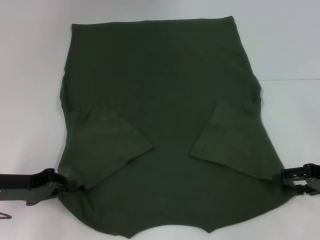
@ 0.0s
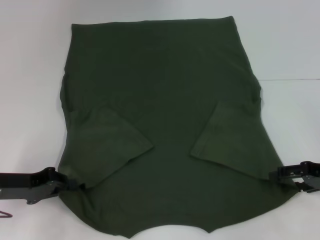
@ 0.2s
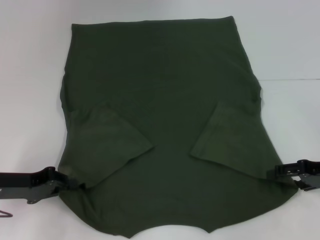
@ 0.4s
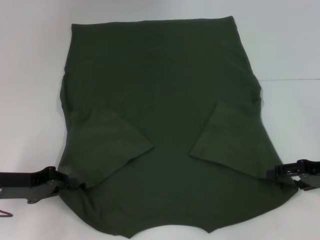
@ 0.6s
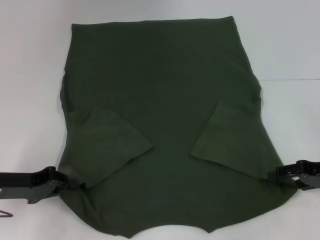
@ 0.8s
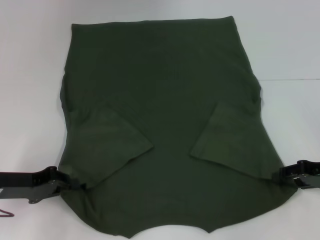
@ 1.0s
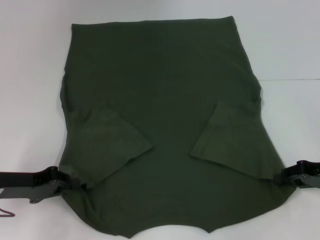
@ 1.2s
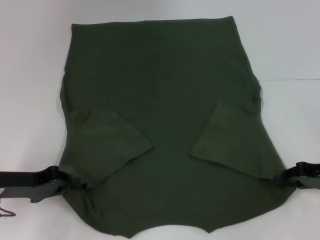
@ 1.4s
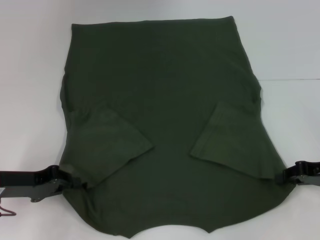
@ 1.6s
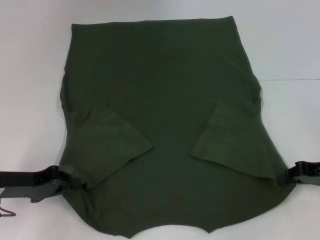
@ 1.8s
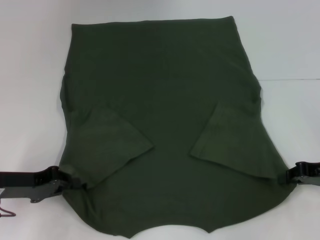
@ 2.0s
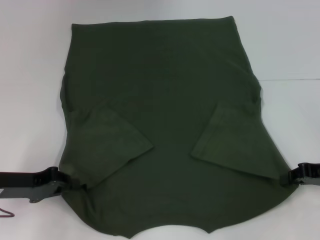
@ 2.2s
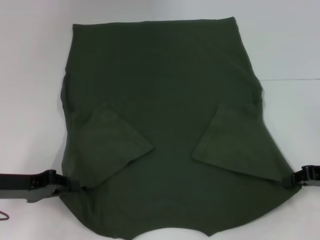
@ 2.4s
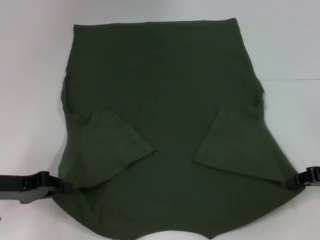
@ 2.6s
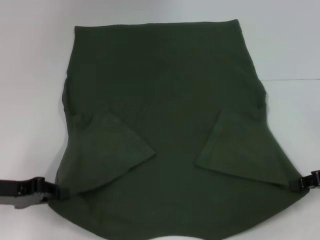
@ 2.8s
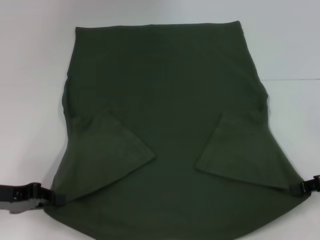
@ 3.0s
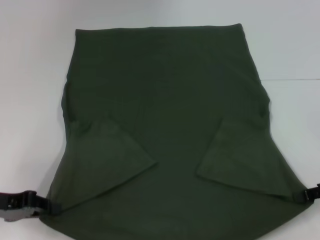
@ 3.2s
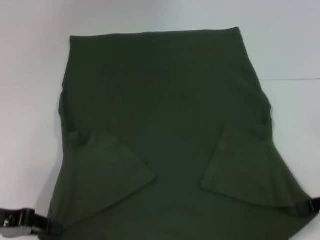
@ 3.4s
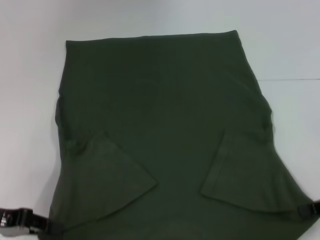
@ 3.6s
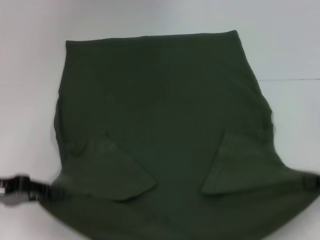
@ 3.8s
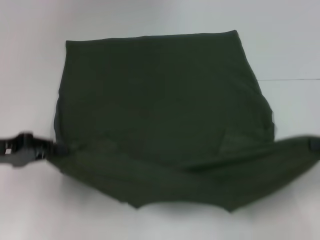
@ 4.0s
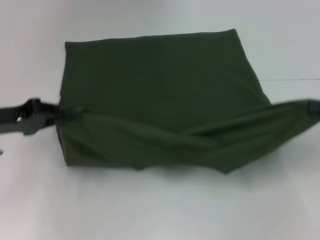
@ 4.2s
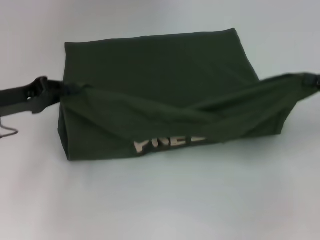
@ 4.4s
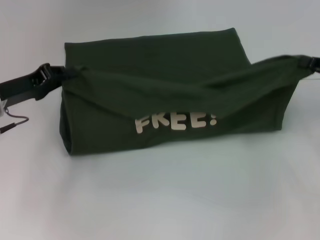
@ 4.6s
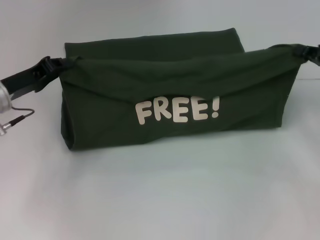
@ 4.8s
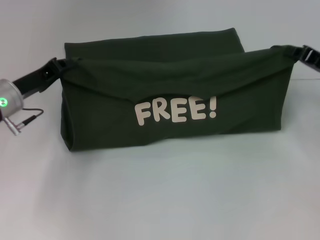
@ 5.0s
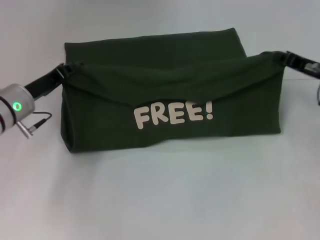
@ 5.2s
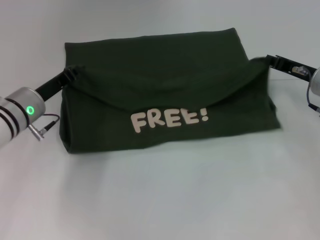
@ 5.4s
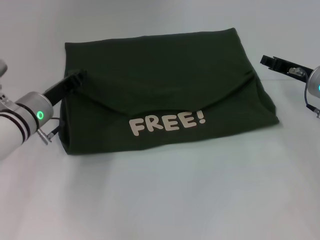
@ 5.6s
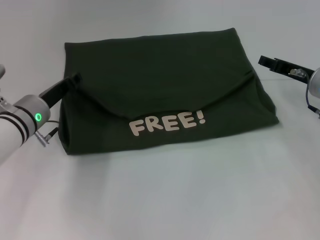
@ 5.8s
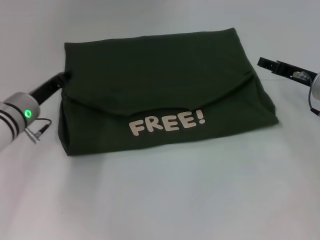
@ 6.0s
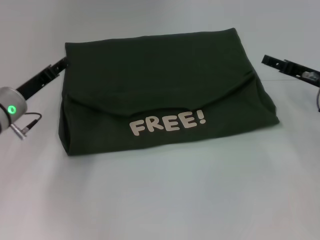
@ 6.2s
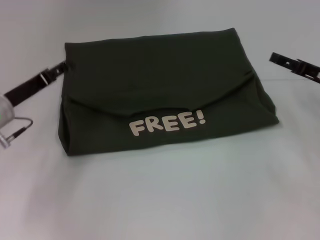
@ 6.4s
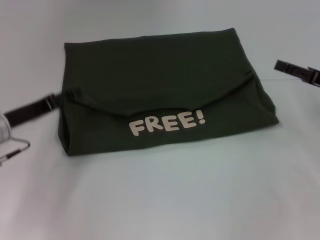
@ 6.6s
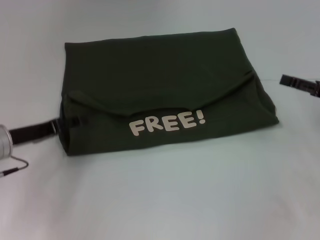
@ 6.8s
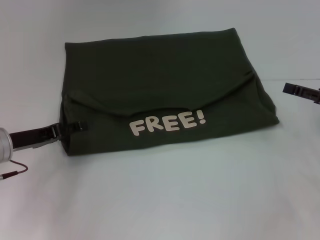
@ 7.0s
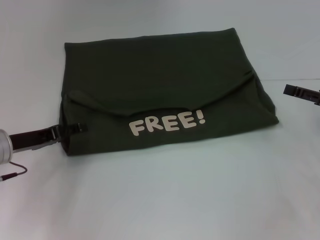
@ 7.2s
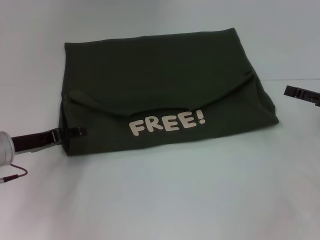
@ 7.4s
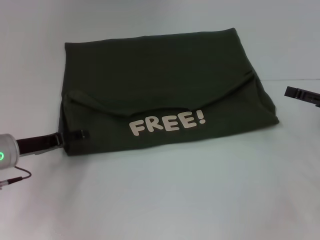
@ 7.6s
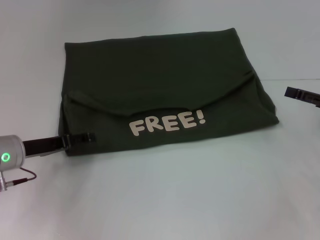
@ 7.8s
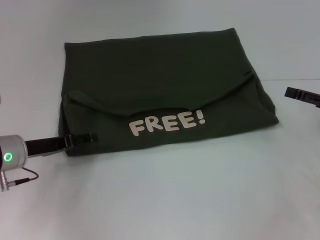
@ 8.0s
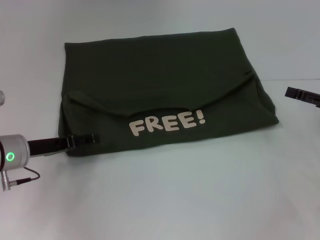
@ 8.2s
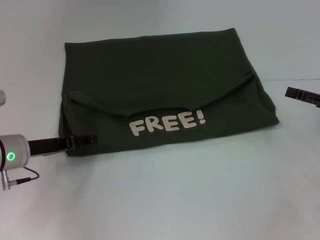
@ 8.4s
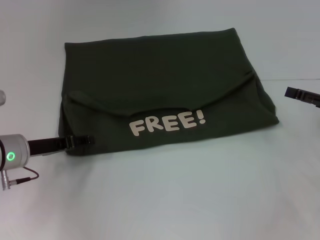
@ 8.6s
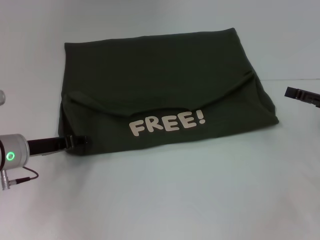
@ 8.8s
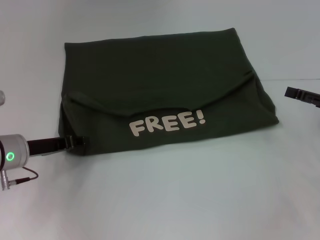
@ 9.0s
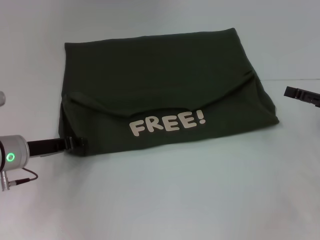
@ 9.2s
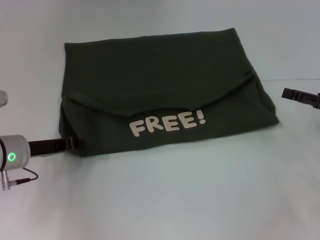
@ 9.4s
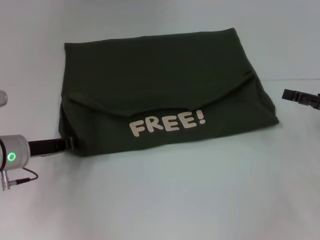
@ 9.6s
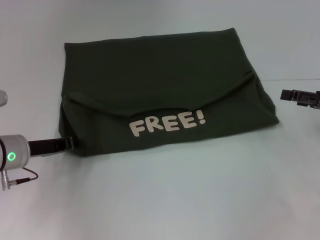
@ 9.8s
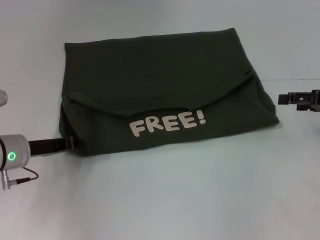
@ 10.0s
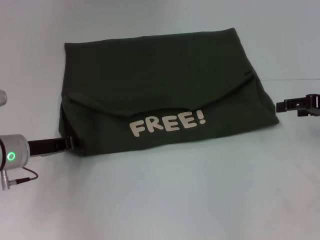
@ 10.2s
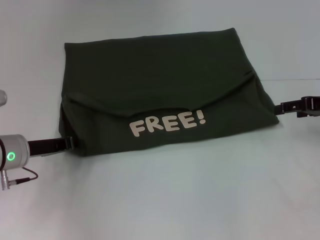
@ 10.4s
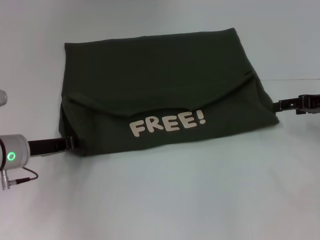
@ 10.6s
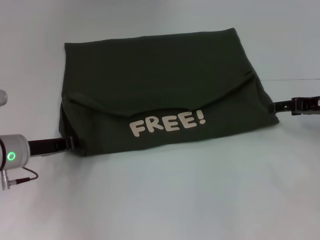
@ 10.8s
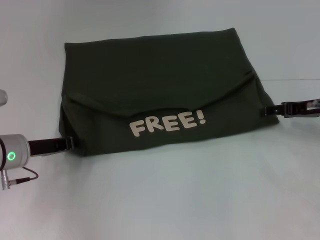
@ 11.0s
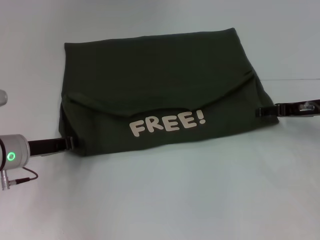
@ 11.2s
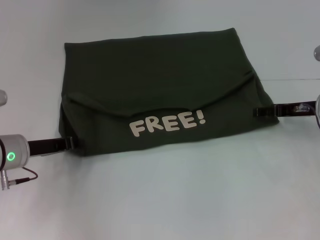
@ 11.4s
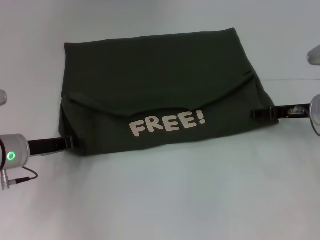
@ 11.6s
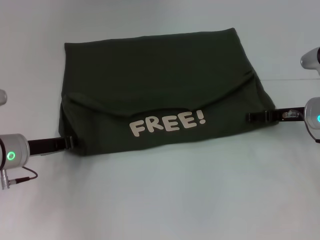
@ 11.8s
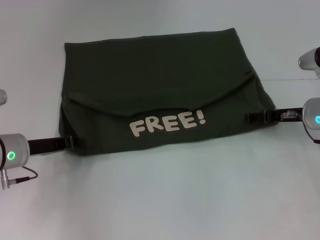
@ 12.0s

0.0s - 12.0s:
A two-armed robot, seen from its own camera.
Step, 1.8s - 6.2s: Fold the clothes with your left hand.
Step, 1.8s - 6.2s: Fold the clothes with your right hand.
0.0s - 1.6s: The right gripper closes.
1.6s - 3.0s: There are only small adjustments of the grippers.
3.0s - 4.4s: The left gripper heads forward and upward, covering about 10 cm. Meanwhile the right gripper goes roughly 5 cm upward.
4.4s - 6.0s: The right gripper moves to the left and forward, some 10 cm, and opens; the left gripper travels downward and to the right by about 10 cm.
6.0s - 7.6s: The left gripper shifts approximately 5 cm backward, and opens its fingers; the right gripper travels to the right and backward by some 10 cm, and opens.
7.6s - 9.0s: The left gripper closes.
9.0s - 10.4s: The right gripper goes approximately 5 cm forward.
10.4s - 12.0s: The right gripper goes roughly 10 cm to the left and downward.

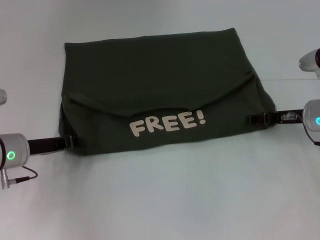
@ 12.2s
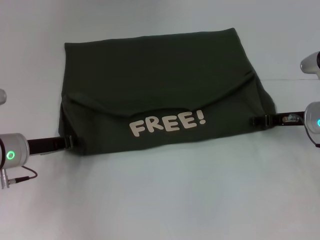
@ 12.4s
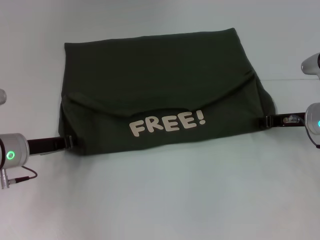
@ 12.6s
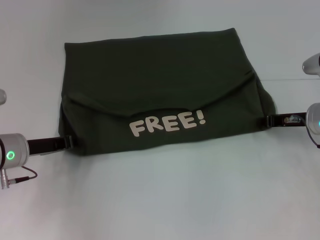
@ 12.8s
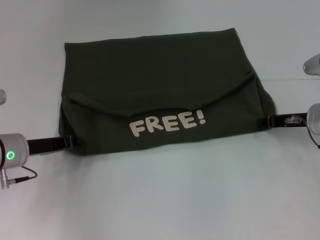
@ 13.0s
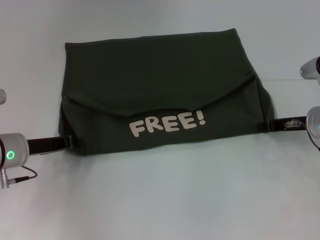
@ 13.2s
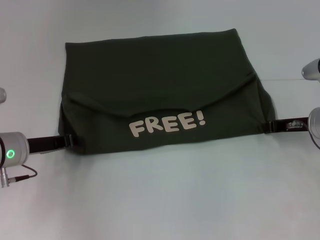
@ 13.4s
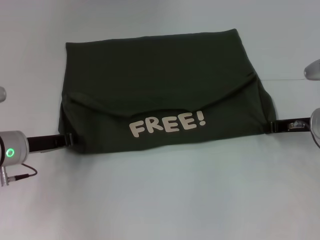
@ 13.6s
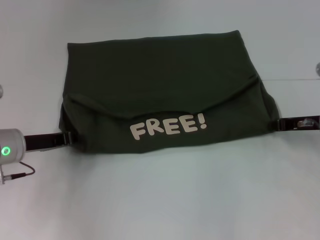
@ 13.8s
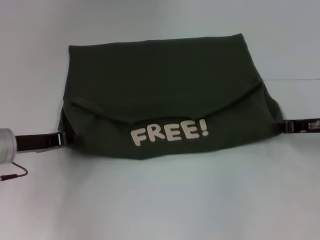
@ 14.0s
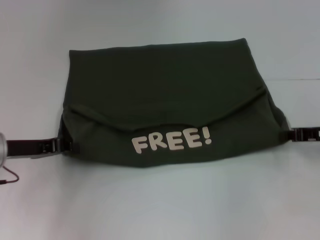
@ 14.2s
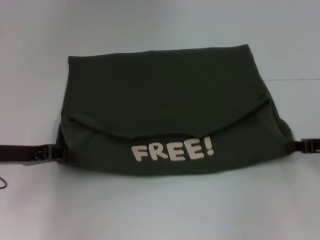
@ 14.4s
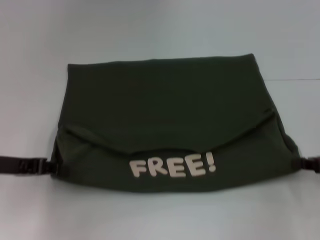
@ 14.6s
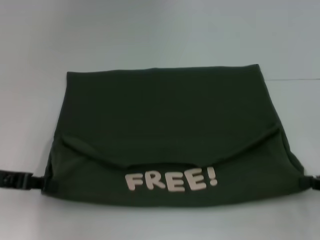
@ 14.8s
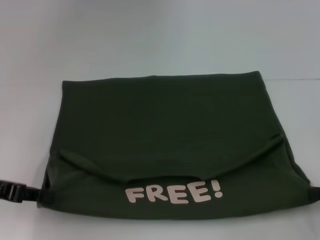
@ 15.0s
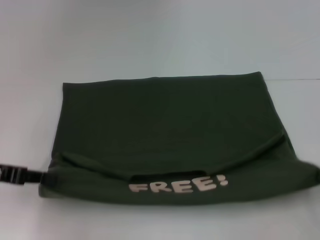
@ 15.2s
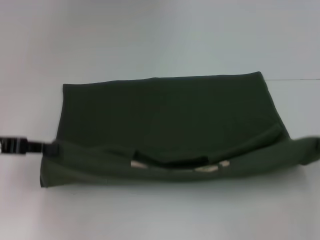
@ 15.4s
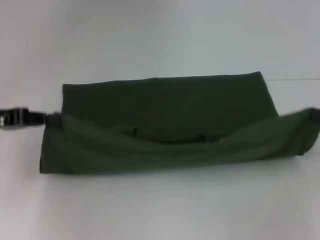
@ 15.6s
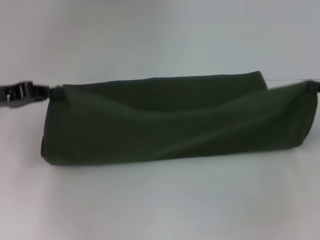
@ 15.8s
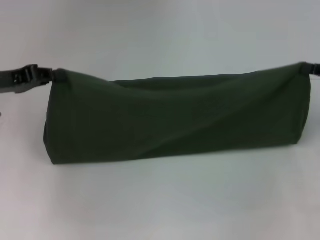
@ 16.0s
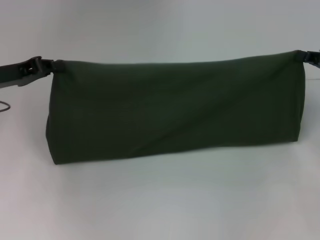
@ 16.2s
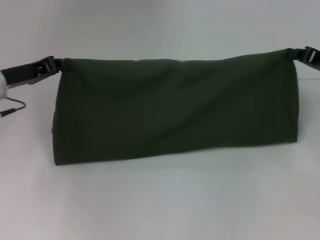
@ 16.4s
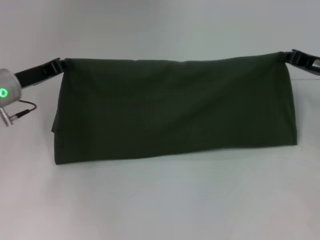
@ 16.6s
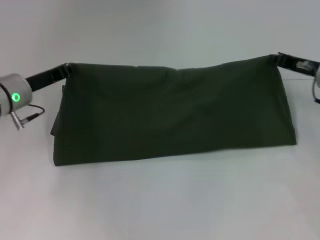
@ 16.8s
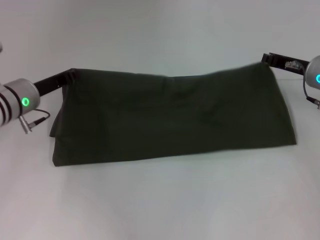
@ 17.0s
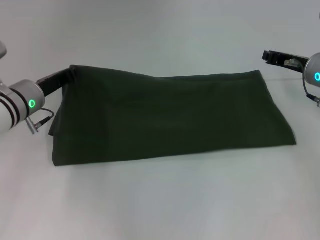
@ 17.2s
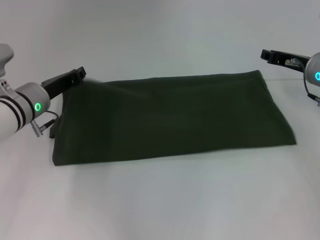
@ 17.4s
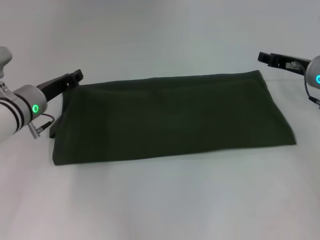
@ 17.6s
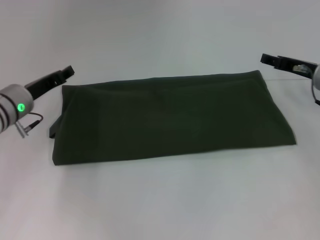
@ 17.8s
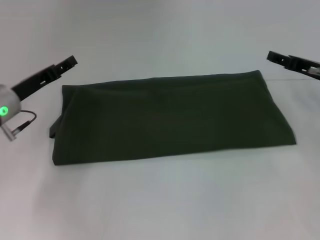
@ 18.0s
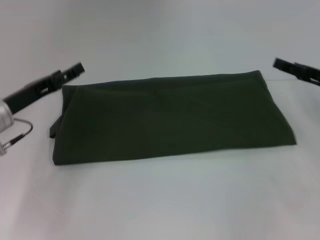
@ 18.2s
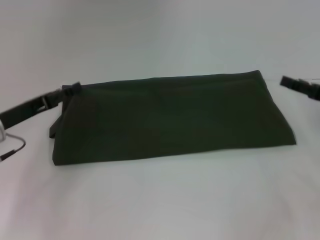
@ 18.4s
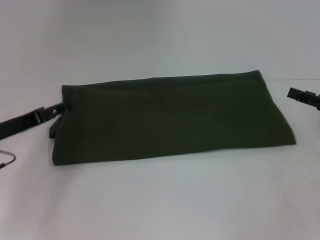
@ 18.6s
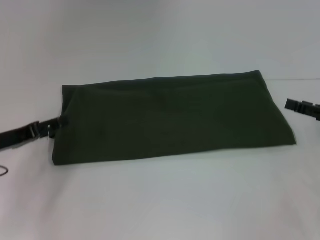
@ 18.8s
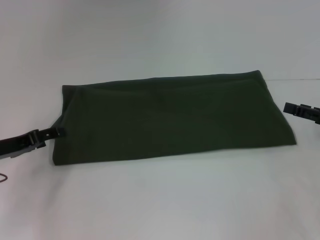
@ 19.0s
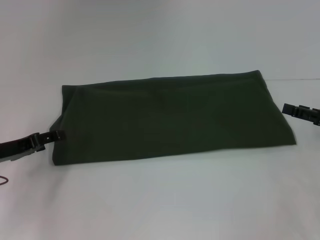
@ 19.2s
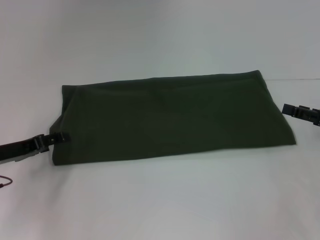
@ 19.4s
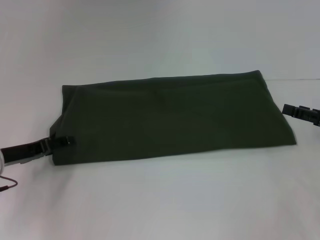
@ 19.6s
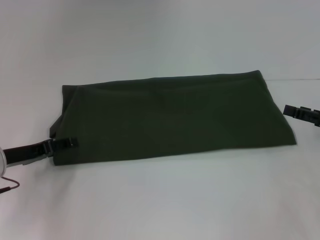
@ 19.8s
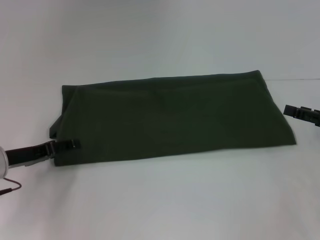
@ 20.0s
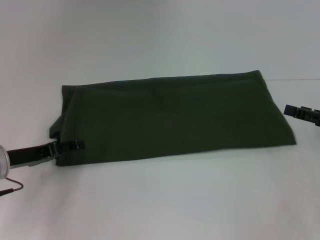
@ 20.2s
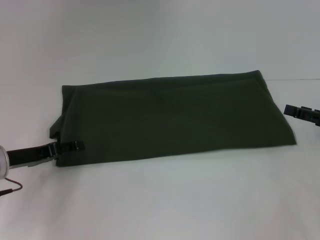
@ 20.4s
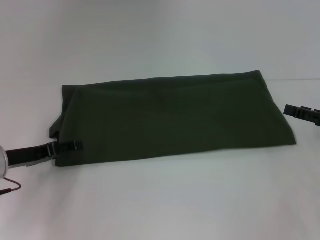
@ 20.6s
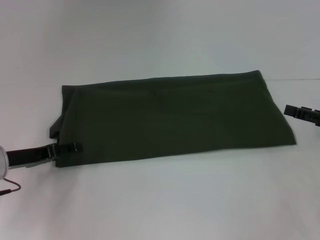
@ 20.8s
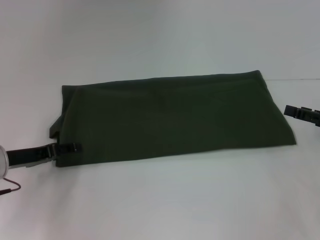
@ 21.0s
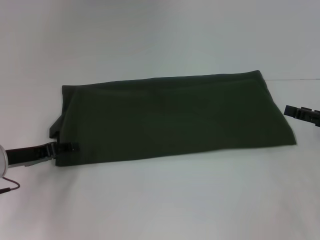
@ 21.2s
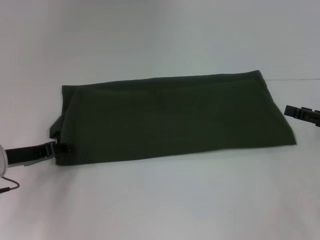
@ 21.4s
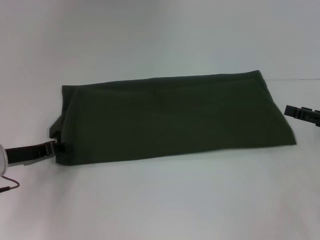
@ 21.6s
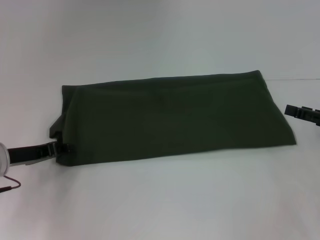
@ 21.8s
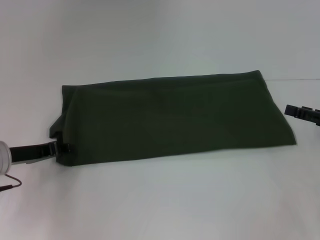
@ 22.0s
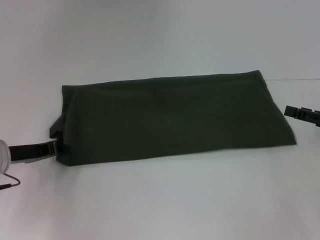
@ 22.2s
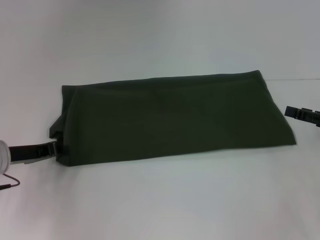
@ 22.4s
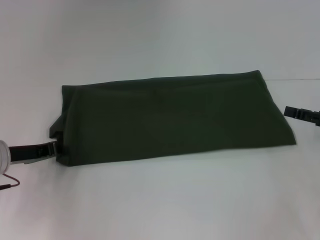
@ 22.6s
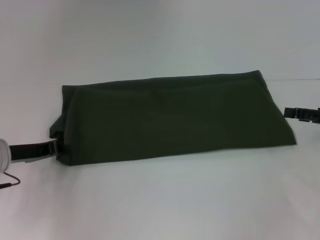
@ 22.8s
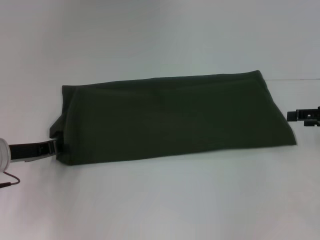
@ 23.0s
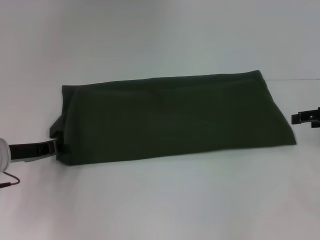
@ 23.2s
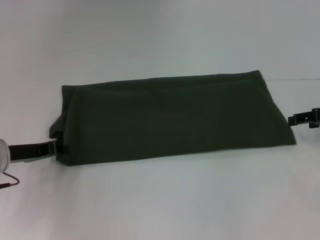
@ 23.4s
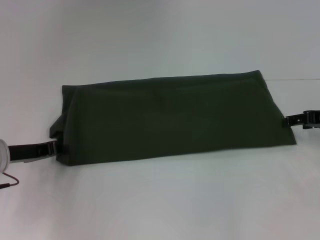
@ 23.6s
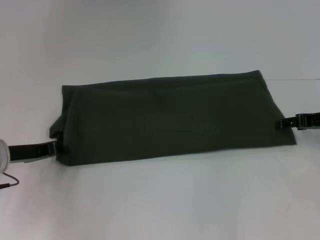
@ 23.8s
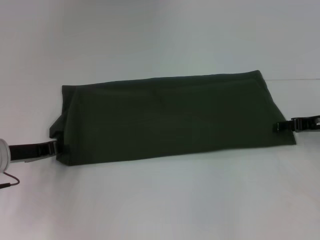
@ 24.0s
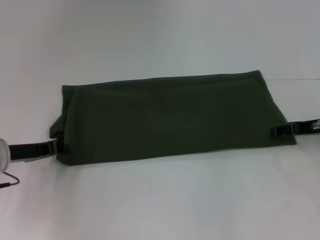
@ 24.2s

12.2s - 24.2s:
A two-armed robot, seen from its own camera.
Step, 12.2s - 14.8s: Pull the clothes with your left hand.
Step, 12.2s - 14.8s: Pull the clothes with your right hand.
Step, 15.0s - 18.0s: Fold the clothes with your right hand.
12.2s - 13.8s: The right gripper closes its fingers.
13.8s - 15.2s: The left gripper goes about 10 cm upward, to the left and backward, while the right gripper goes some 15 cm backward and to the right.
15.2s - 16.6s: The right gripper is displaced forward and to the left by about 20 cm, while the left gripper moves forward and to the right, roughly 15 cm.
16.6s - 18.2s: The right gripper opens up; the left gripper moves approximately 5 cm, and opens its fingers.
18.2s - 19.8s: The left gripper moves about 5 cm; the right gripper goes about 5 cm backward.
19.8s - 21.2s: Neither gripper changes place.
21.2s - 22.6s: The left gripper closes up.
22.6s - 24.2s: The right gripper heads forward, covering some 5 cm.
